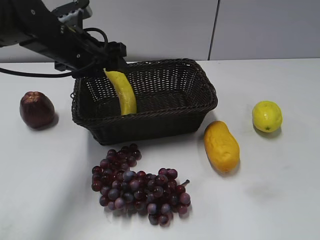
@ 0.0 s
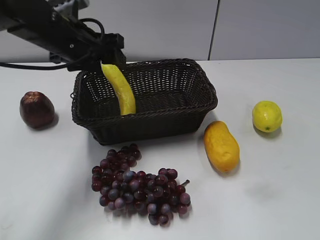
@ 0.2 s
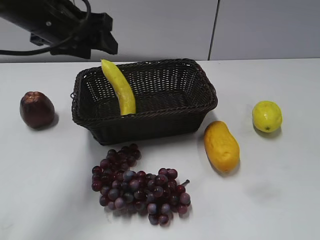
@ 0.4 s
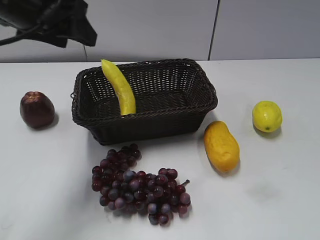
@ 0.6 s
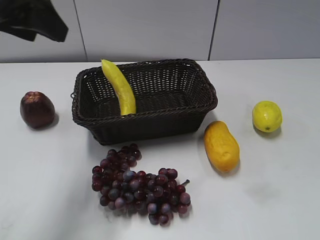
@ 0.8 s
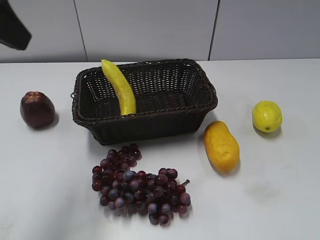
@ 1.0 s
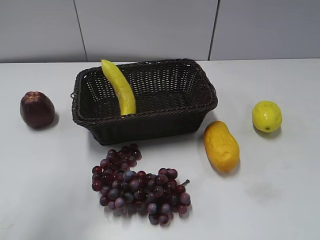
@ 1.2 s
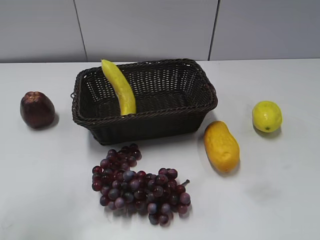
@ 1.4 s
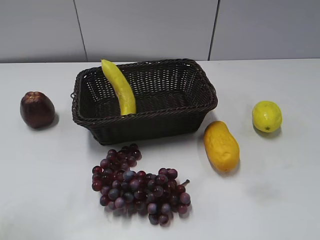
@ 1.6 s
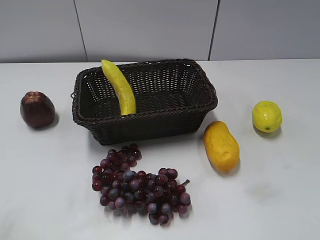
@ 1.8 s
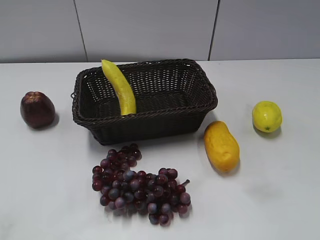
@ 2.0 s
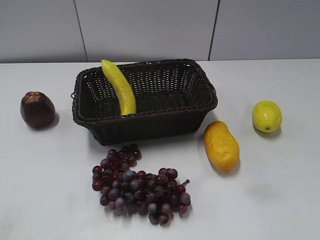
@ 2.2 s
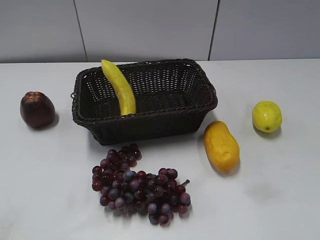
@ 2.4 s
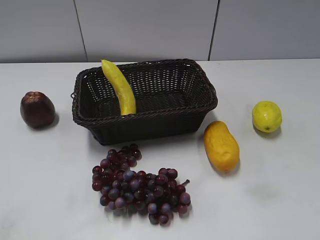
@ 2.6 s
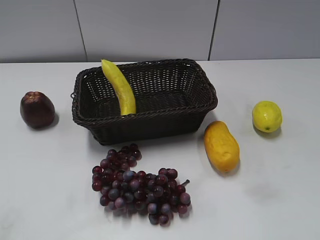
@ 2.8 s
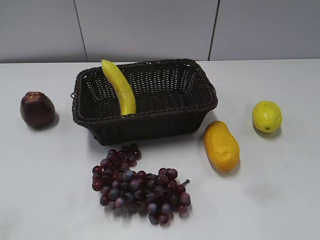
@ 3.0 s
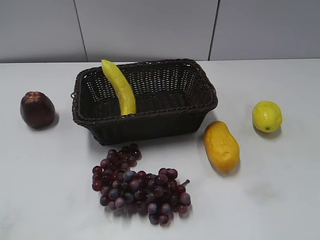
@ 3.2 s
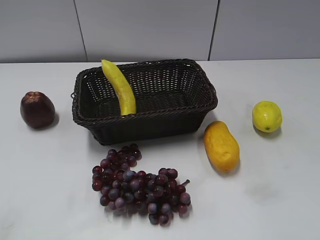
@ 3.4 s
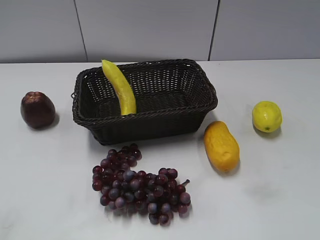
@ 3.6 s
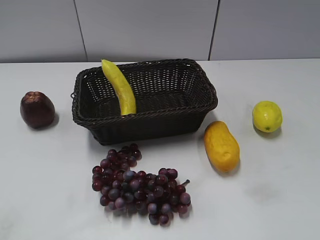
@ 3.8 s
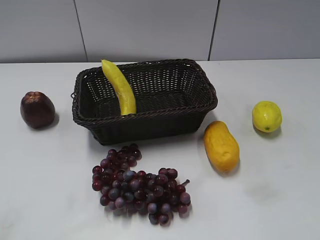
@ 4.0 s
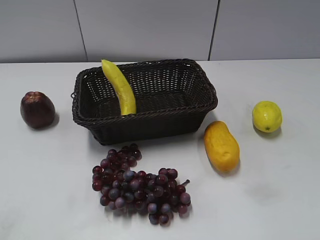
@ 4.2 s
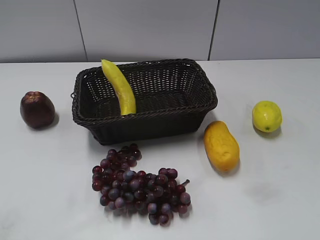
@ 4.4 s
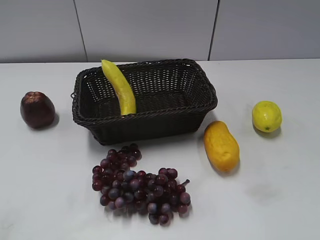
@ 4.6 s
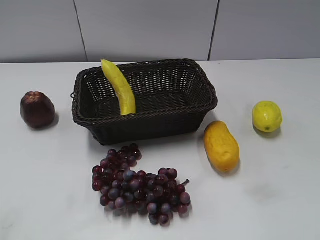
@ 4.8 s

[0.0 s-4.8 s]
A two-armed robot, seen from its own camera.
0.0 to 1.6 s: The left gripper shifts approximately 30 cm backward, upward and to the left.
